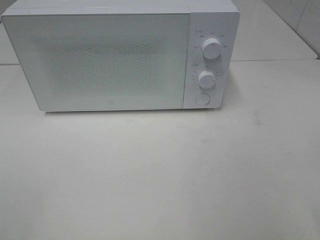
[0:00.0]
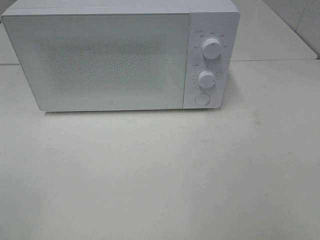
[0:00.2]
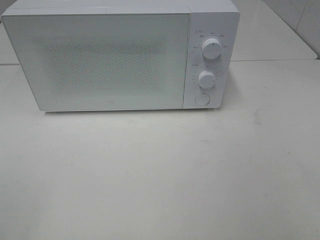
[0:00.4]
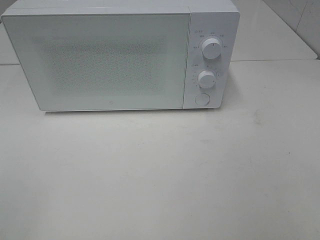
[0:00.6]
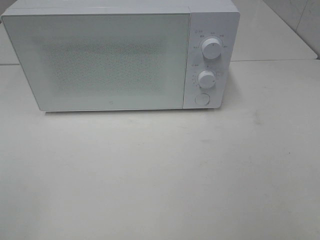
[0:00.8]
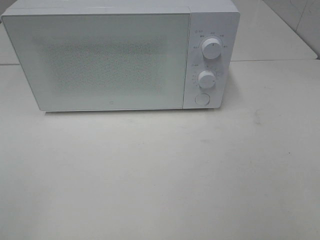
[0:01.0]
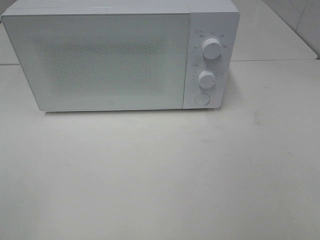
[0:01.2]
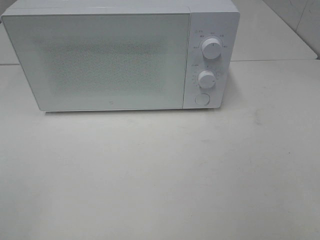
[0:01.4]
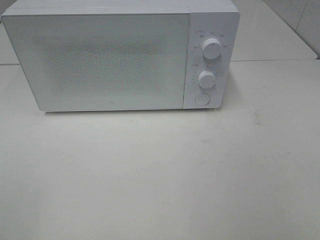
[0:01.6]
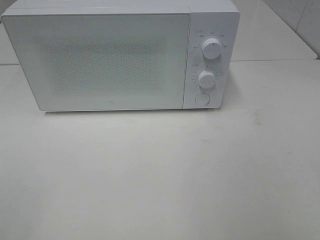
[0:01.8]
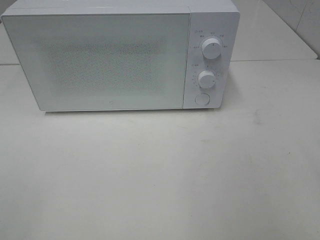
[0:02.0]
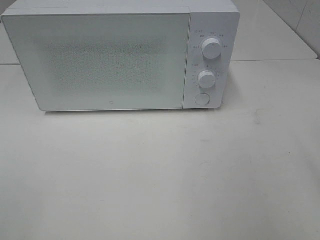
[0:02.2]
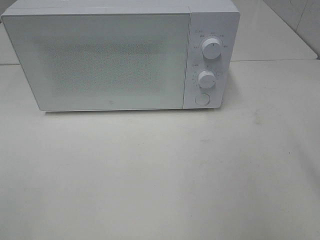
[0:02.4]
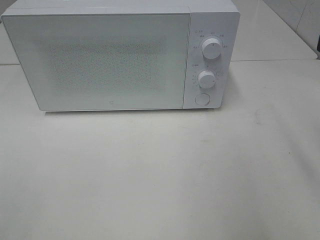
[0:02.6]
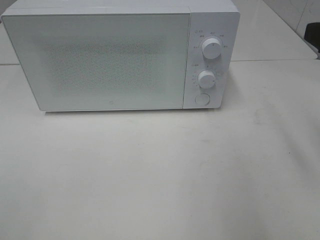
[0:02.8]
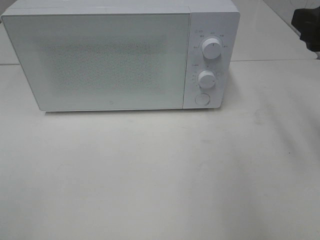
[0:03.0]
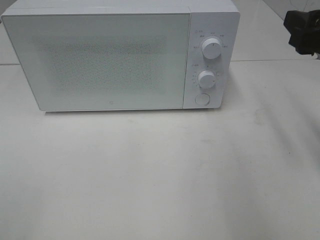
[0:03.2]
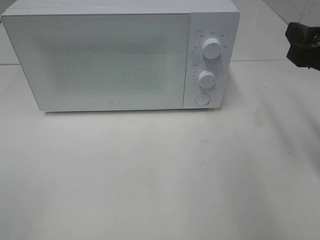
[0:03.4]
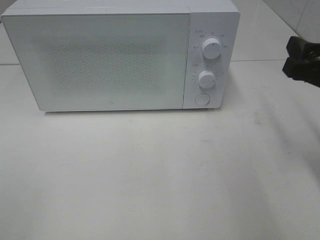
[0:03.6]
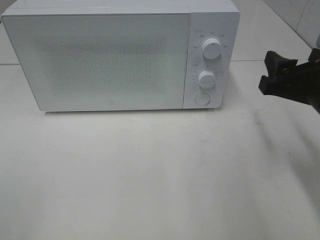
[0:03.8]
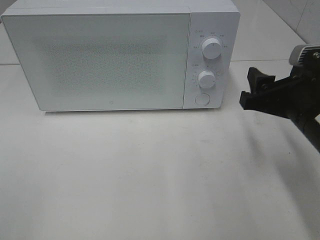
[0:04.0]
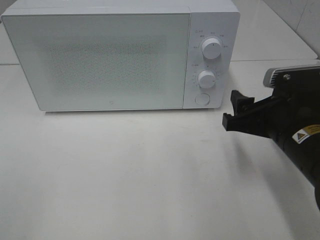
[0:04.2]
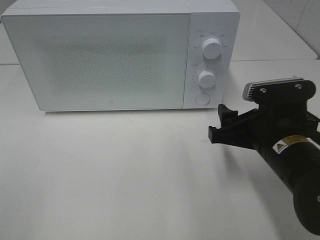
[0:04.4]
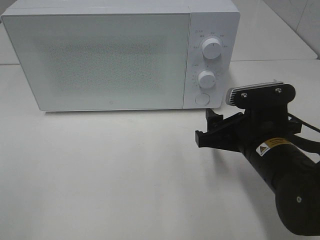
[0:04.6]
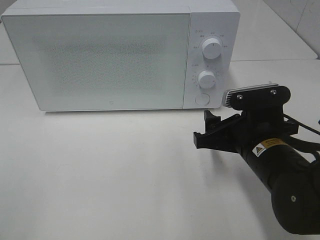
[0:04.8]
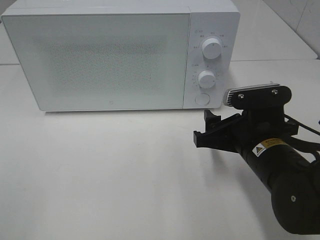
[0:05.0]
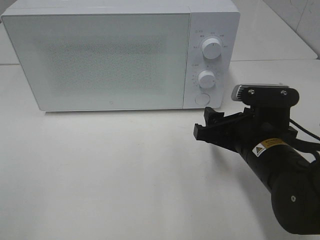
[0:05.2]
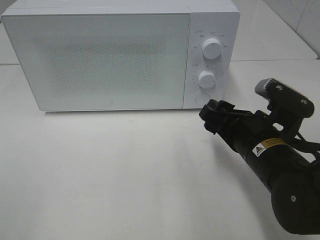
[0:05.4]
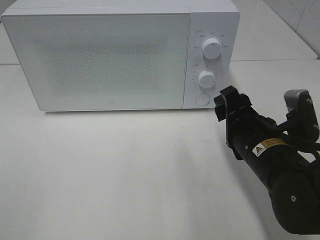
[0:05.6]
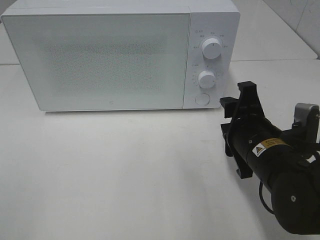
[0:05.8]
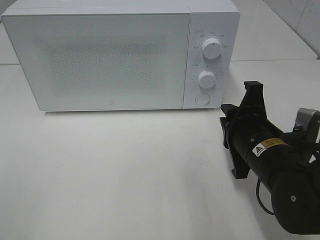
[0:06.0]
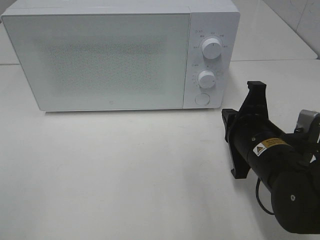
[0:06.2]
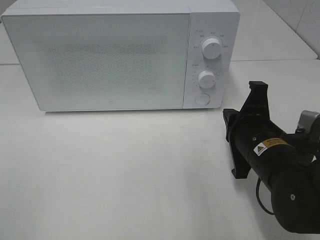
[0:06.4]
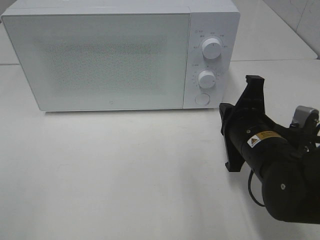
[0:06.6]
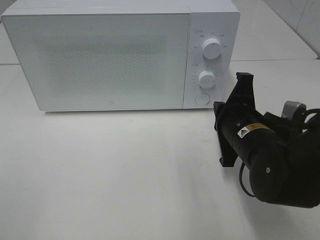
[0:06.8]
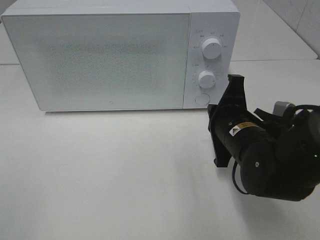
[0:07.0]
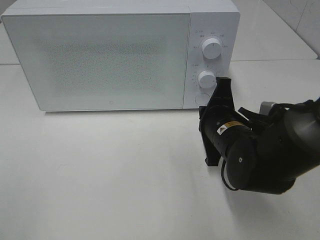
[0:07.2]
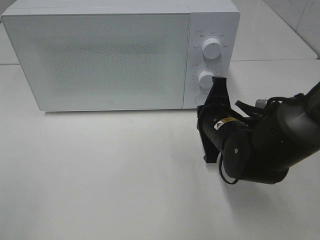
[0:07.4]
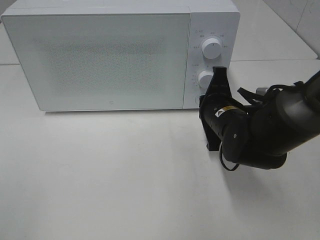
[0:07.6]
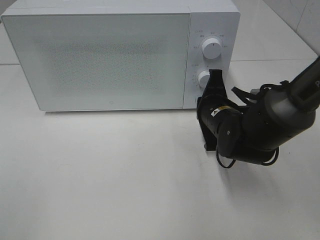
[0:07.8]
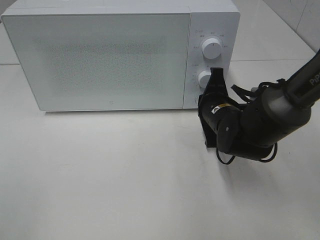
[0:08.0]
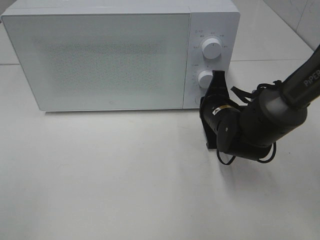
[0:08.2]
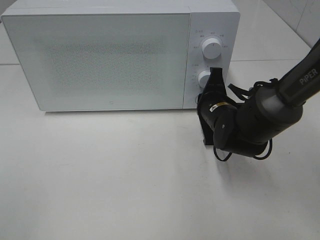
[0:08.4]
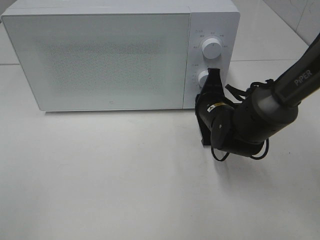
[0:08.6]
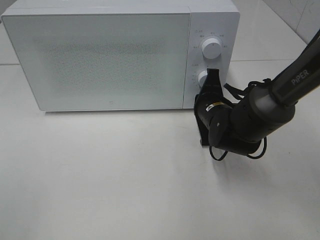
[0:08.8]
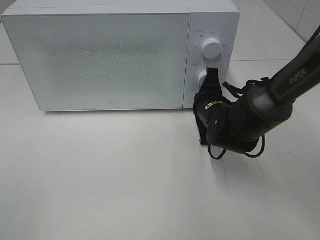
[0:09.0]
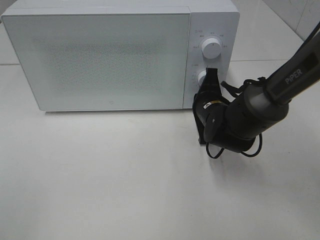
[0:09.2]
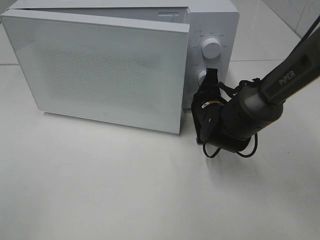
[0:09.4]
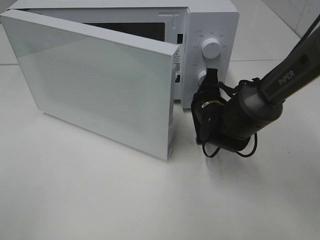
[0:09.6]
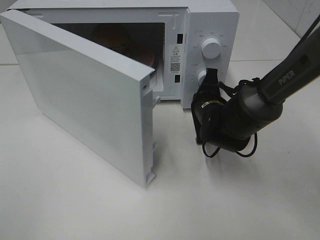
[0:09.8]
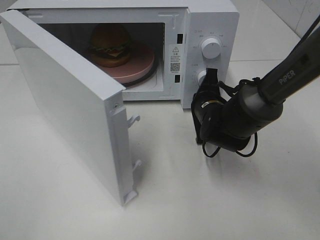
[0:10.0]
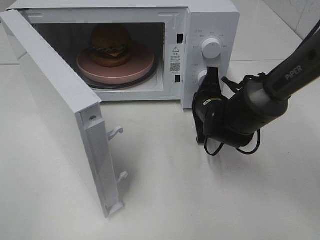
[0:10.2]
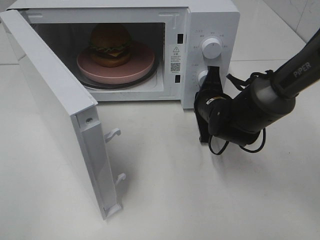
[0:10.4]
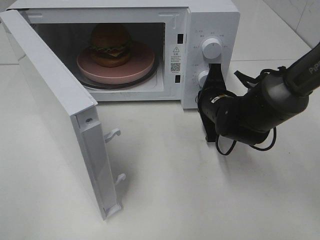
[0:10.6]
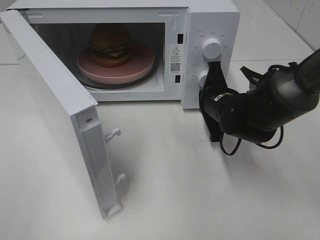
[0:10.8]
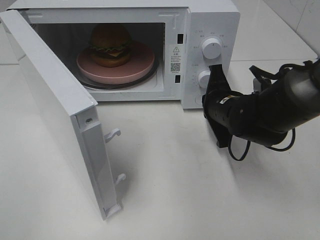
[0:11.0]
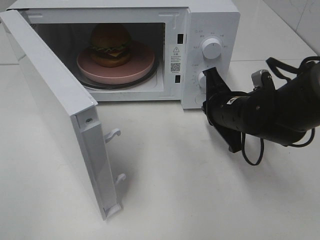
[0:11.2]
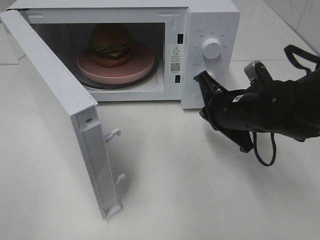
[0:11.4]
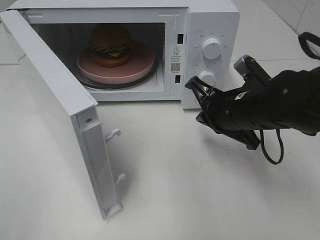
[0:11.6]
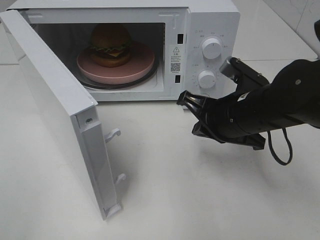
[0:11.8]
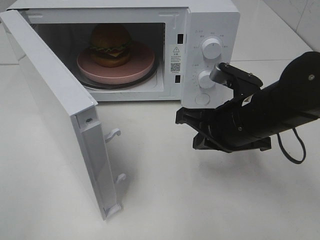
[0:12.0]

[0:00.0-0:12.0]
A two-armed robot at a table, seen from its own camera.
Task of the whole recording: Heat the burger.
Step, 0:00.0 to 0:11.0: Right hand: press the switch.
0:01.6 to 0:03.0: The right gripper goes roughly 20 cm forward.
0:03.0 to 0:04.4: The right gripper moves downward and to the left, some 15 cm.
0:04.4 to 0:06.0: The right gripper closes up.
0:06.0 to 0:07.6: The right gripper goes about 10 cm forward.
0:07.6 to 0:09.0: The right gripper shifts by some 5 cm.
0:10.4 to 0:12.0: The right gripper travels backward and upward by approximately 15 cm.

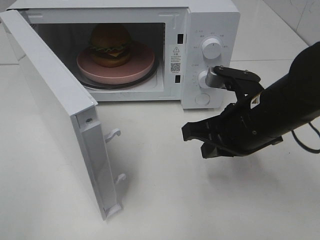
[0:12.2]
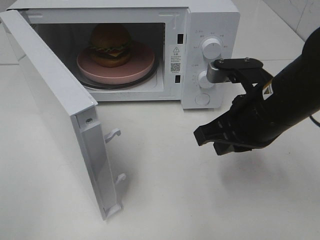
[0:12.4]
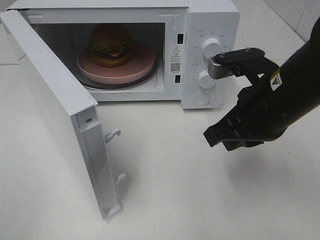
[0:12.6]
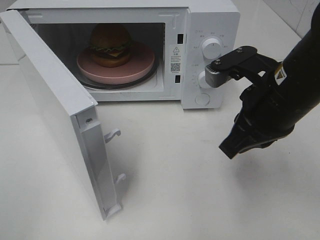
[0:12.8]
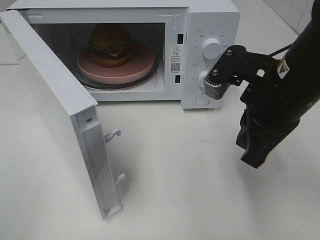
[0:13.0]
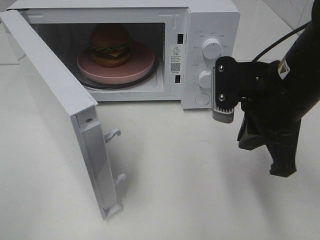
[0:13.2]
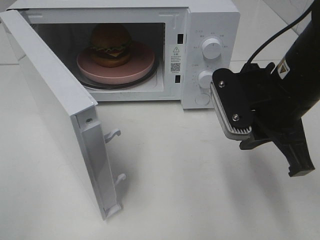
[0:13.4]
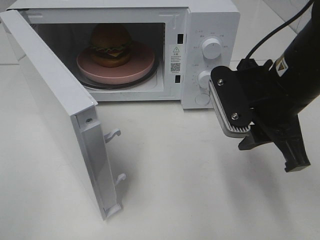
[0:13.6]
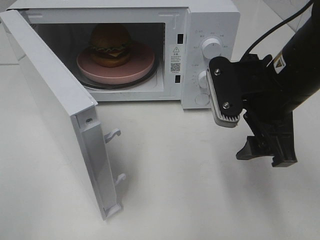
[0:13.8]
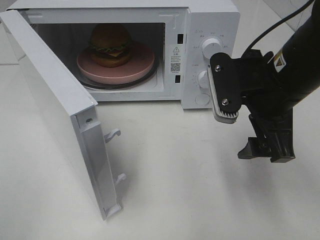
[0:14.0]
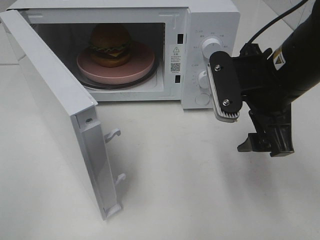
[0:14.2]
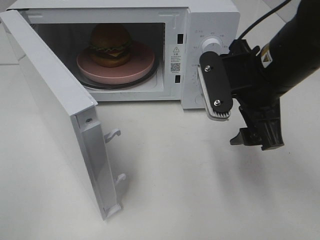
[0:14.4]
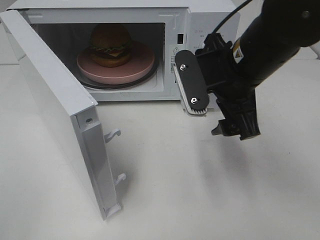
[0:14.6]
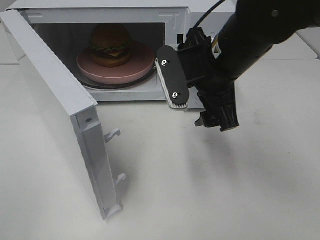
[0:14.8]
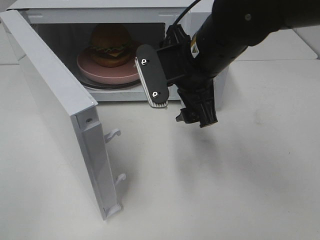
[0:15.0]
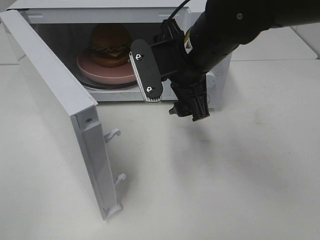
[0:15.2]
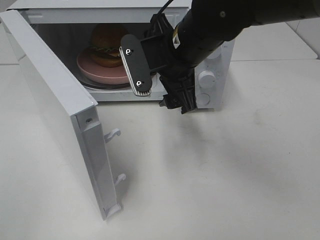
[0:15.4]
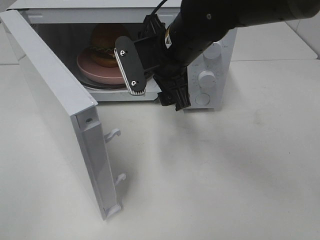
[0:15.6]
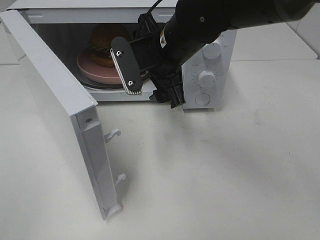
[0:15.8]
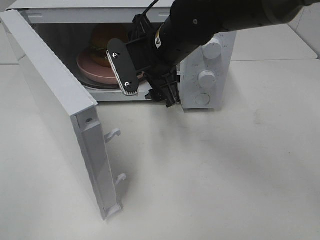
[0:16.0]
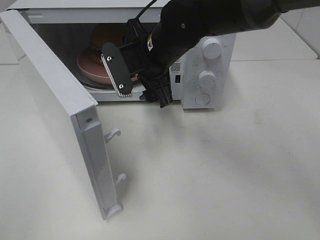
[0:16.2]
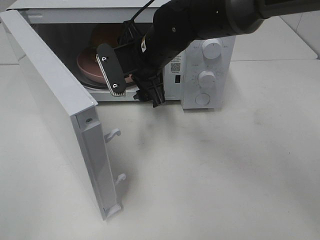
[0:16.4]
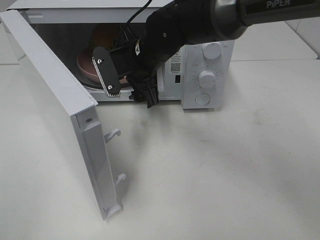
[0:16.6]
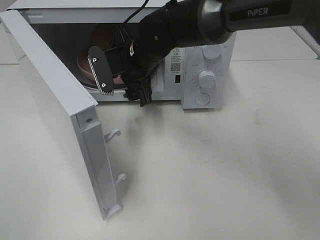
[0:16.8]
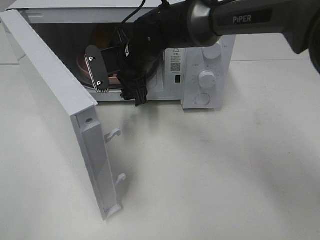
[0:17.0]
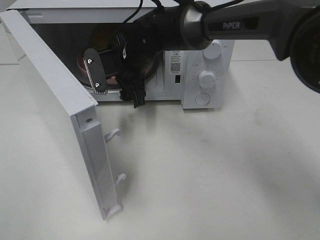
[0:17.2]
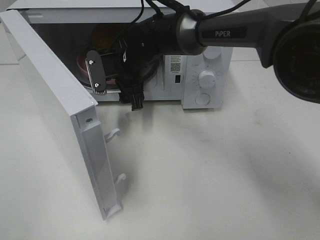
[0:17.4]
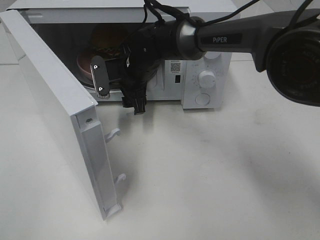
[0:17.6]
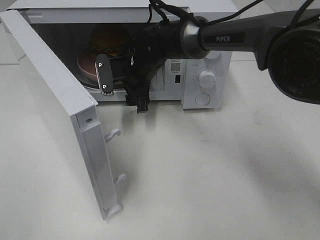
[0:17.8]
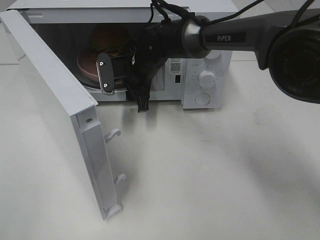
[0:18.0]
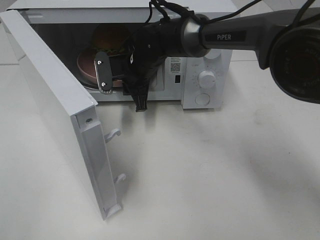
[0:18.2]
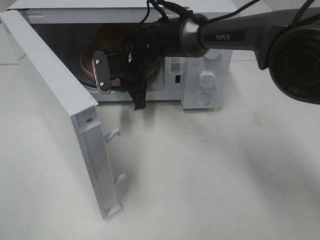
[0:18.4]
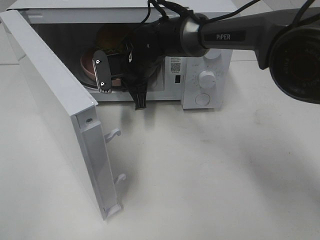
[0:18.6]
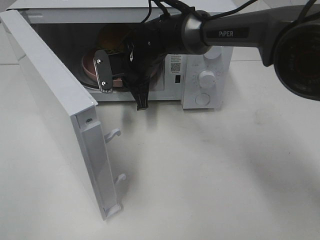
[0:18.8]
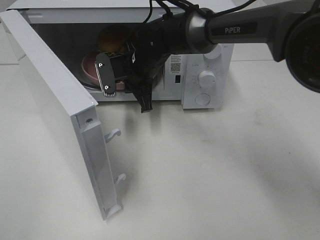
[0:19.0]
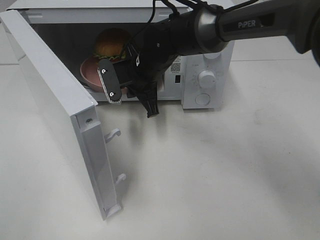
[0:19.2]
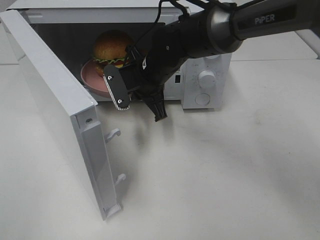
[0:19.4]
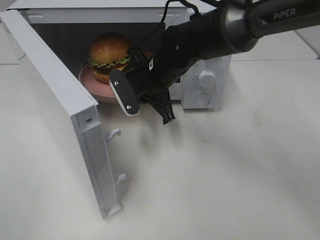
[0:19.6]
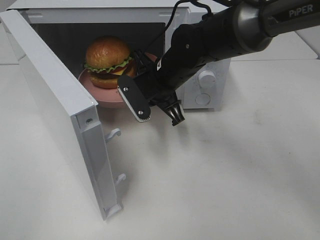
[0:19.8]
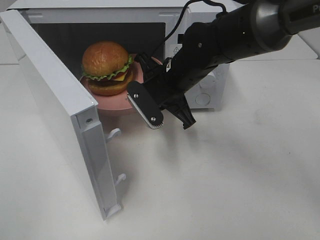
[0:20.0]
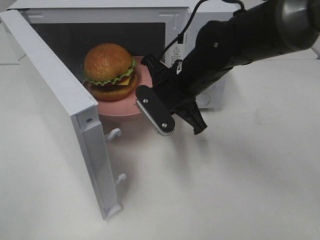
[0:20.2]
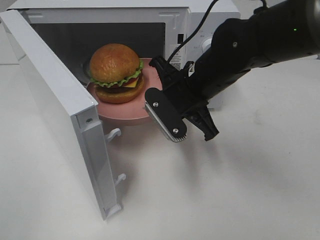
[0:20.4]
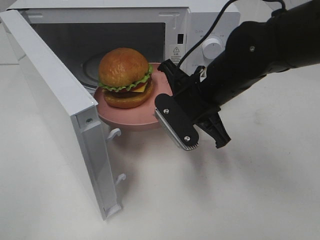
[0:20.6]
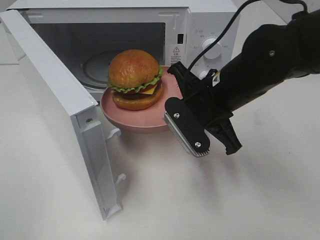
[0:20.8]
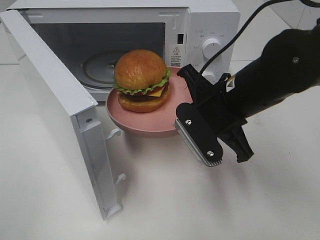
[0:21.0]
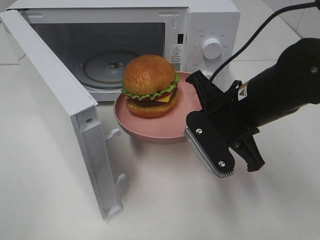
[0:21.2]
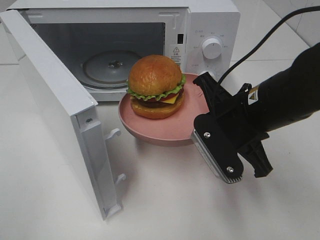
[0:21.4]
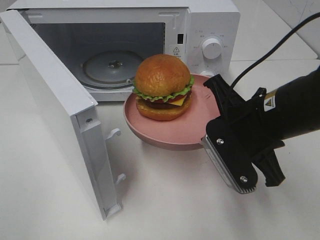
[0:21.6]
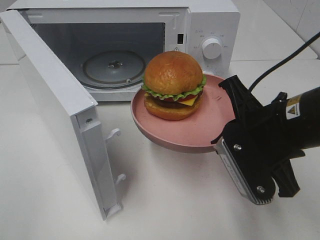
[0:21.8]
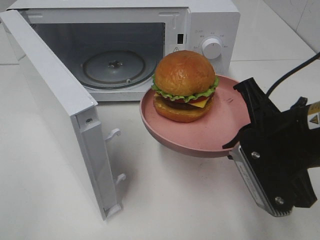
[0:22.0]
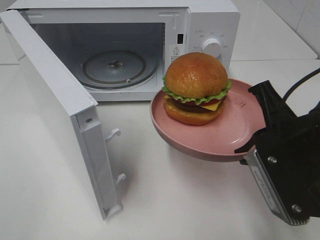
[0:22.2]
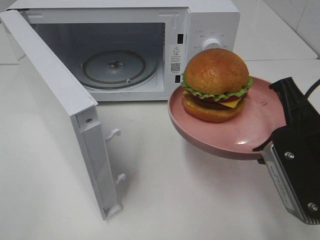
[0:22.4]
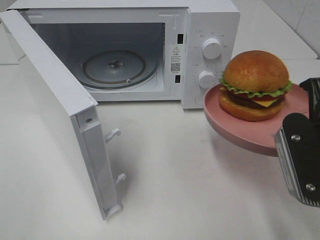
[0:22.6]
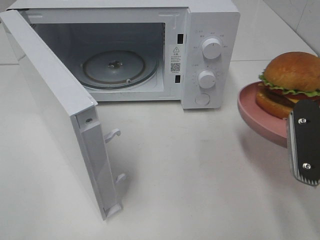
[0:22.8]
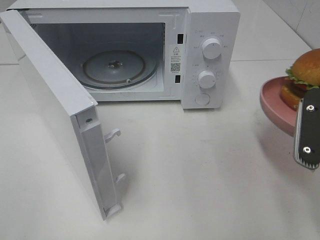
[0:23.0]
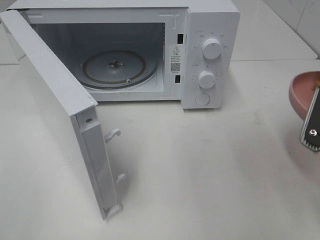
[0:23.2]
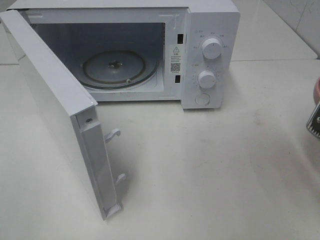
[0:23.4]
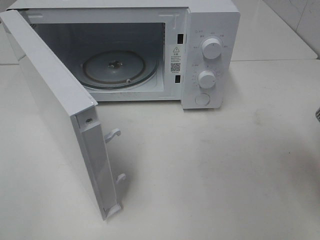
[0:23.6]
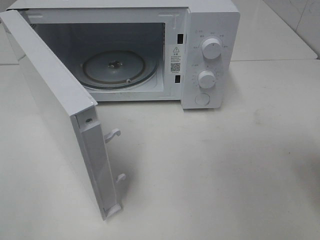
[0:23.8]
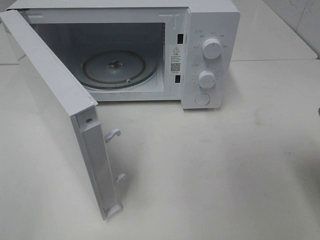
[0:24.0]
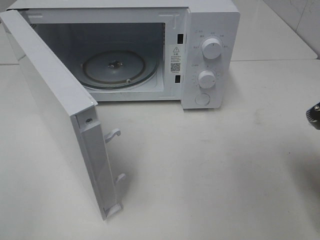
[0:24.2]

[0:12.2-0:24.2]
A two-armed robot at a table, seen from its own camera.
Task of the whole recording: Heat the burger.
Step, 0:12.2 to 0:18.6: Right hand: grab the plate with the hamburger.
0:12.2 to 0:13.8: The right gripper shifts about 5 cm upward, and opens.
0:13.8 to 0:15.2: The right gripper moves to the left and forward, roughly 10 cm.
0:15.2 to 0:16.6: The right gripper travels forward, to the left and downward by roughly 10 cm.
0:16.6 to 0:18.2: The right gripper shifts some 5 cm forward and downward, and closes.
0:18.2 to 0:19.8: The right gripper is displaced backward and to the right by about 10 cm.
0:19.8 to 0:21.2: The right gripper goes approximately 15 cm backward and to the right.
0:21.2 to 0:22.6: The right gripper heads backward and to the right, covering some 15 cm.
0:22.6 to 0:24.2: The right gripper ends up about 5 cm from where it was.
